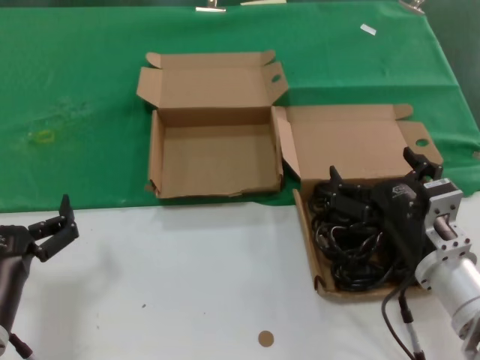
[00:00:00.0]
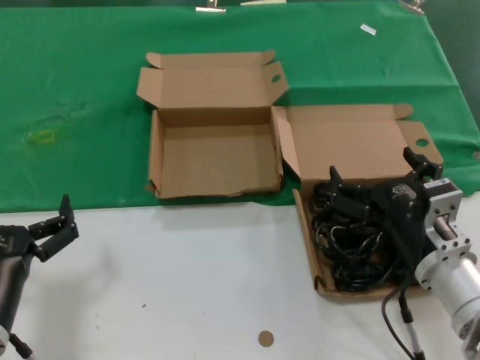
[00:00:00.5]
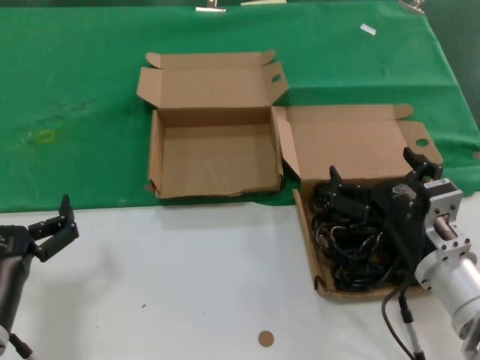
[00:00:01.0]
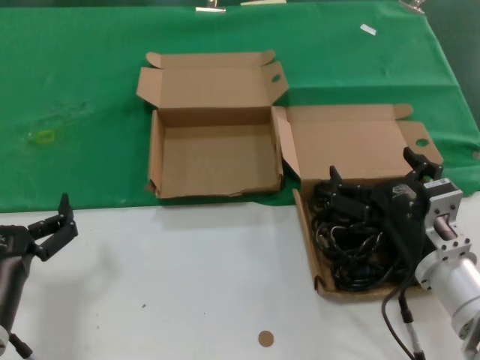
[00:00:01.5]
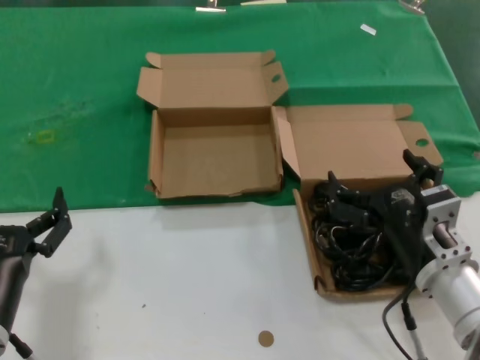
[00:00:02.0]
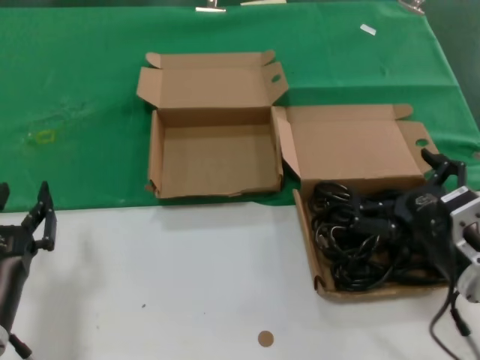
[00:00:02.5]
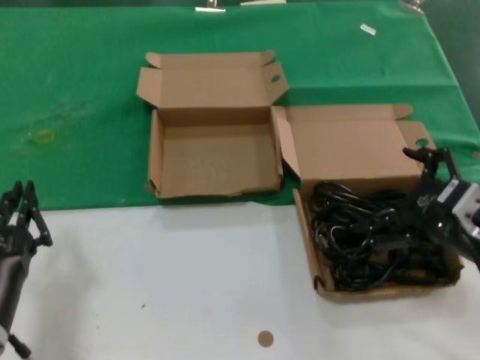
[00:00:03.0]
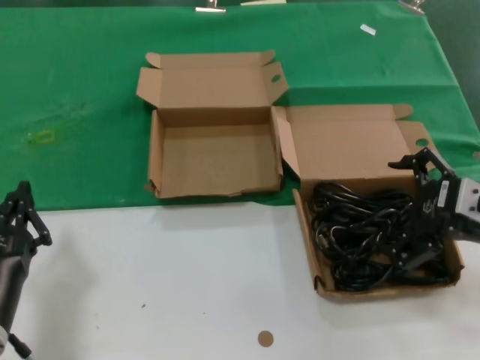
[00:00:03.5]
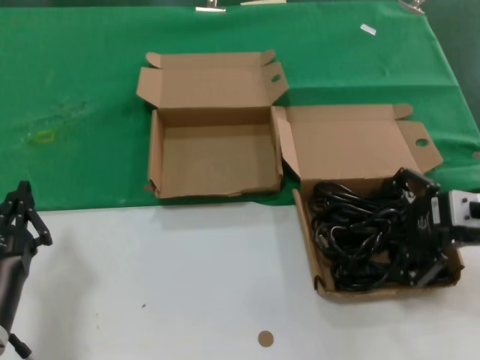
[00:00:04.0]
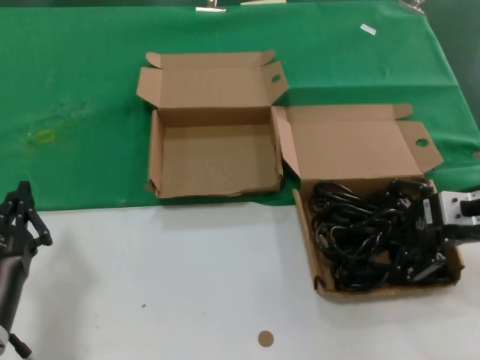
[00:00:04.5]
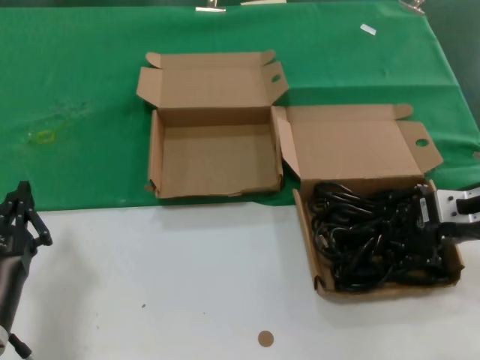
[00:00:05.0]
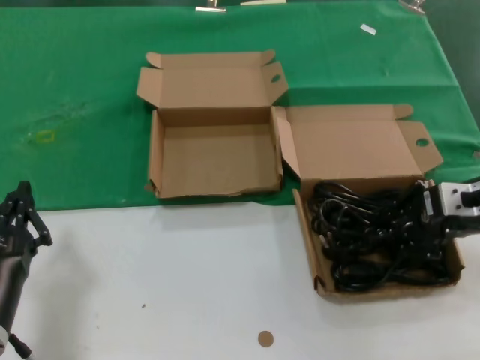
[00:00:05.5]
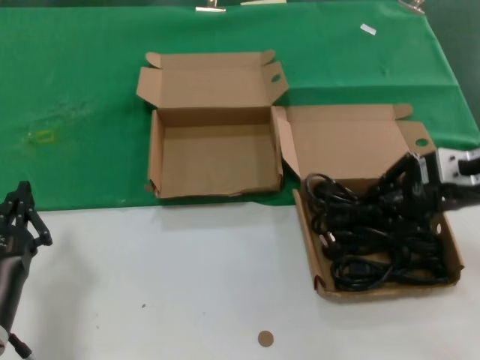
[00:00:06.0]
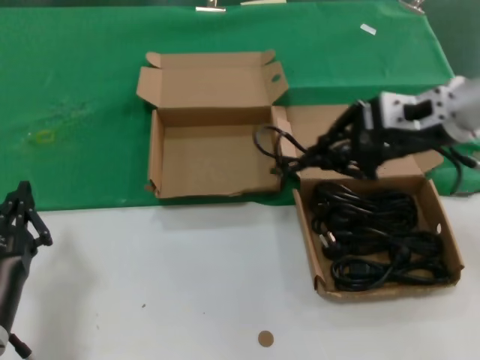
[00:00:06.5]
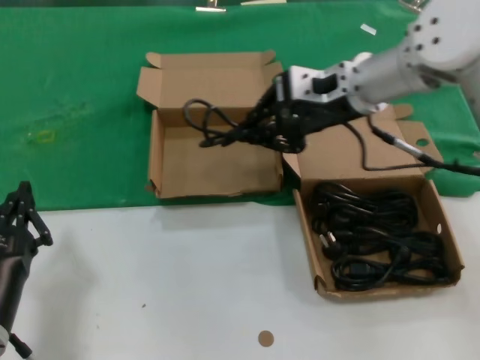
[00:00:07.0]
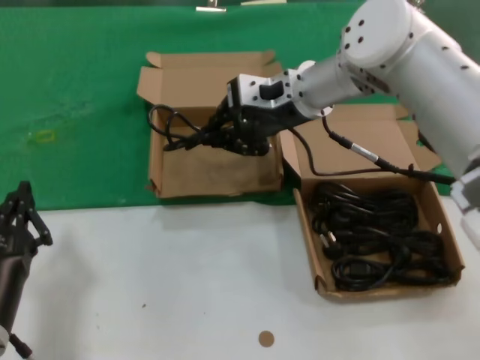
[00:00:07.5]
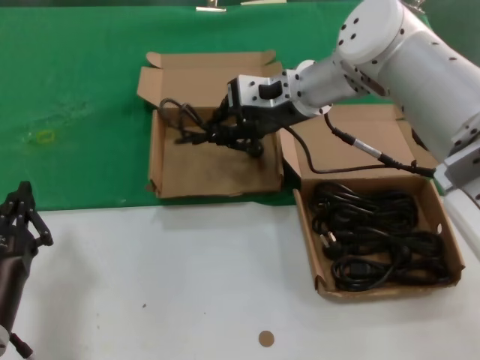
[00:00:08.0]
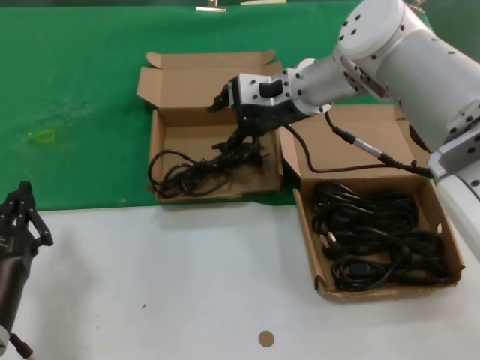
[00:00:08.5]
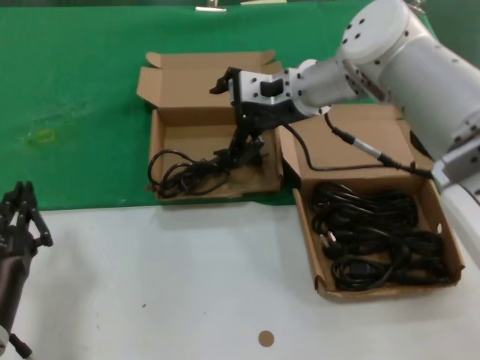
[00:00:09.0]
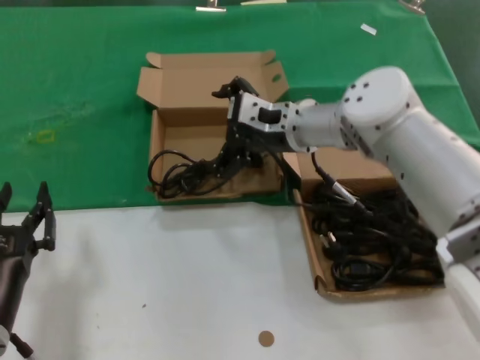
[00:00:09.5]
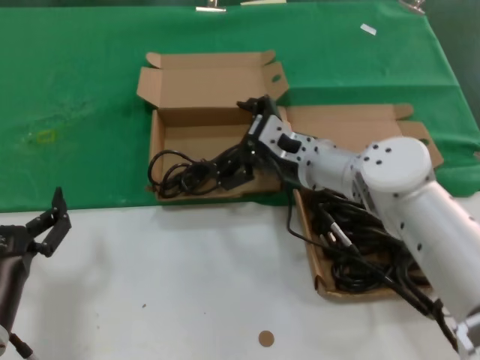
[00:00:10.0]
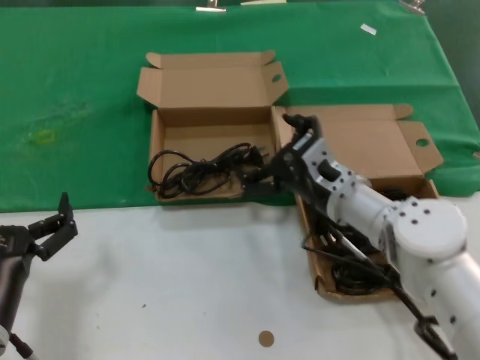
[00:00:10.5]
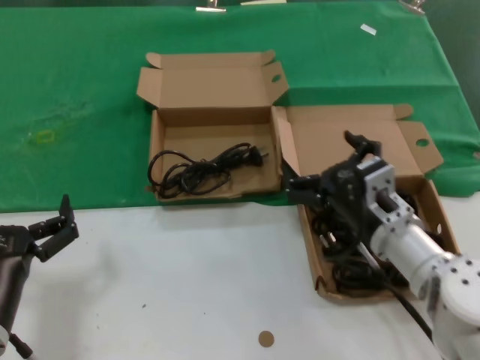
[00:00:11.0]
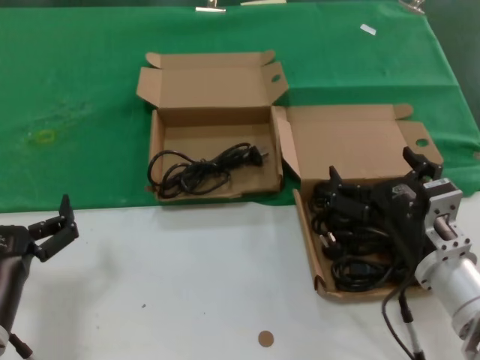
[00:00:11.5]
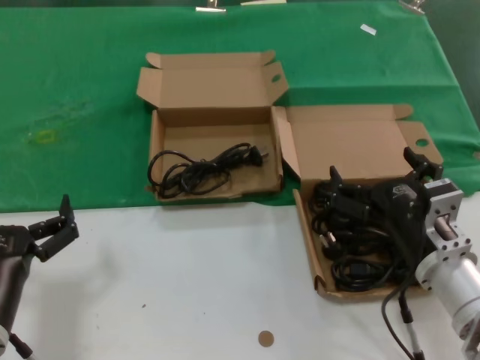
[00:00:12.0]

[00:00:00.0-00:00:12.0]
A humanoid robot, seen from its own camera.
Task of the whole recording: take the parts from the box containing them and put them into an empty box.
Step, 00:00:00.0 to 00:00:05.0: Grasp the data cable.
Step, 00:00:05.5 to 00:00:08.0: Place the data cable in the another box.
00:00:00.0 to 00:00:02.0: Neither hand changes place.
00:00:02.0 to 00:00:04.0: The right hand goes roughly 20 cm upward, to the right and forward.
00:00:04.0 to 00:00:06.0: The right hand shifts by about 5 cm.
00:00:06.0 to 00:00:08.0: The right hand moves to the left and forward, roughly 25 cm.
00:00:08.0 to 00:00:10.0: The right hand shifts approximately 15 cm downward and backward.
00:00:10.0 to 00:00:12.0: The right hand travels backward and to the right by some 20 cm.

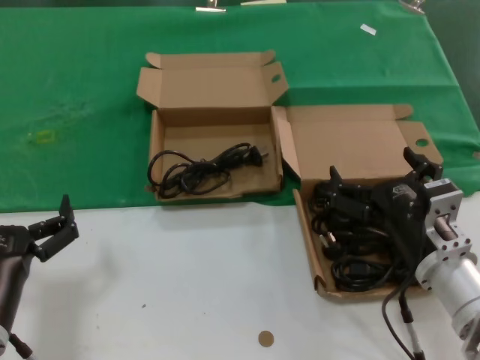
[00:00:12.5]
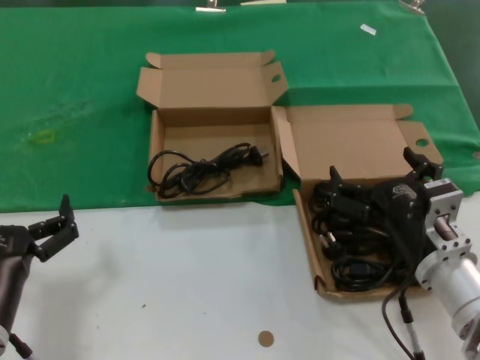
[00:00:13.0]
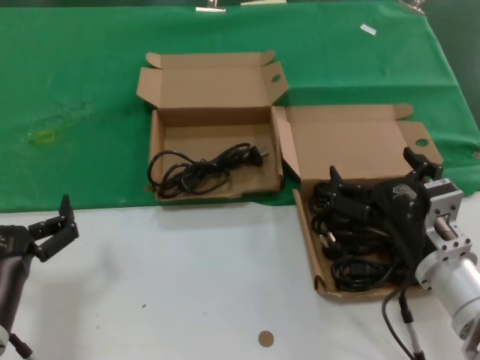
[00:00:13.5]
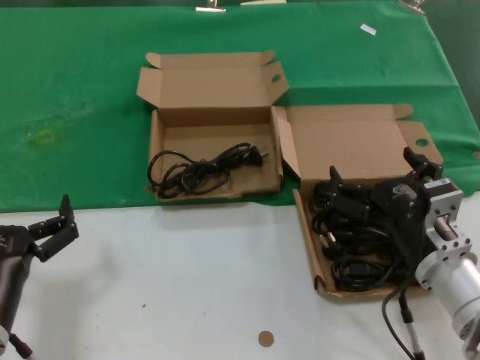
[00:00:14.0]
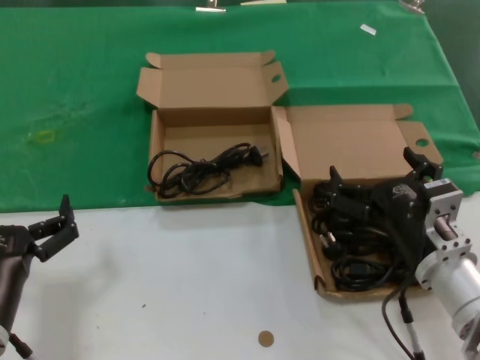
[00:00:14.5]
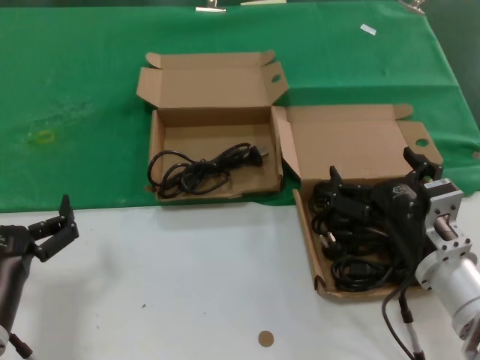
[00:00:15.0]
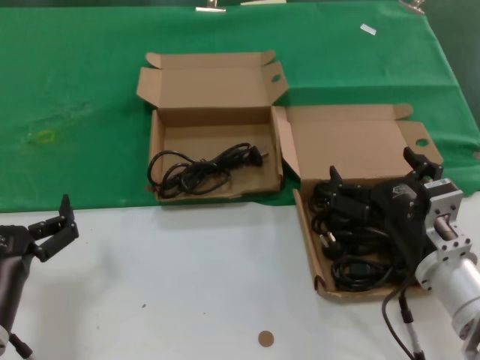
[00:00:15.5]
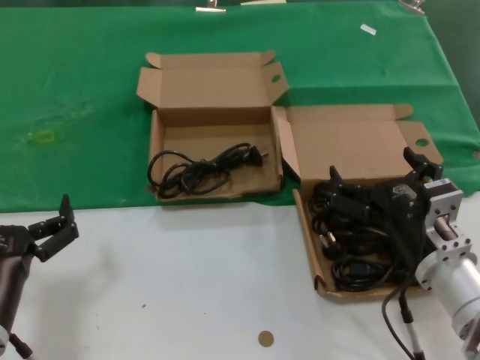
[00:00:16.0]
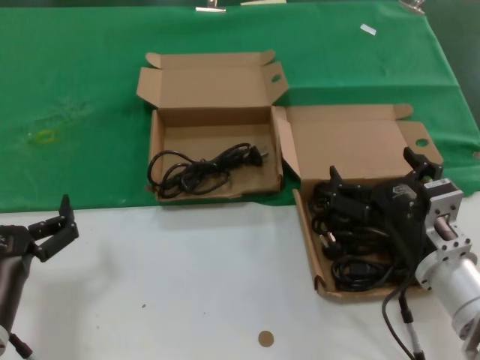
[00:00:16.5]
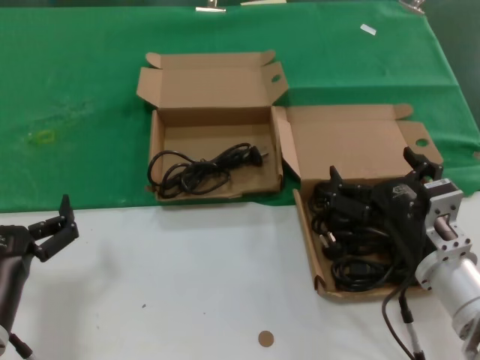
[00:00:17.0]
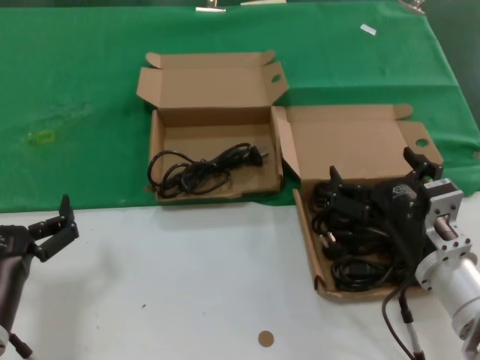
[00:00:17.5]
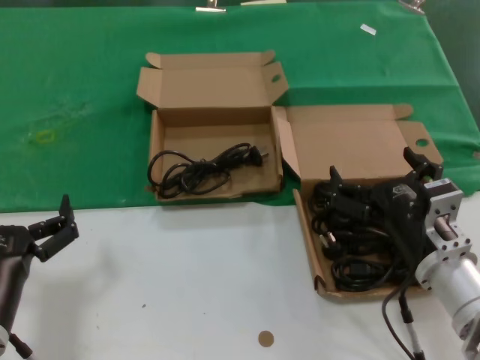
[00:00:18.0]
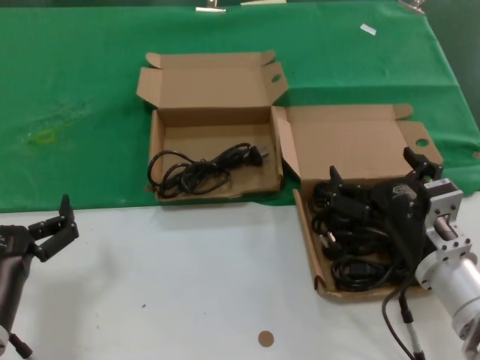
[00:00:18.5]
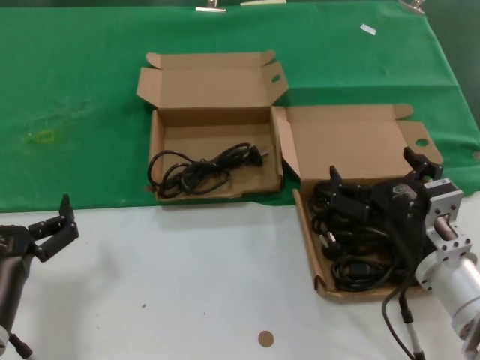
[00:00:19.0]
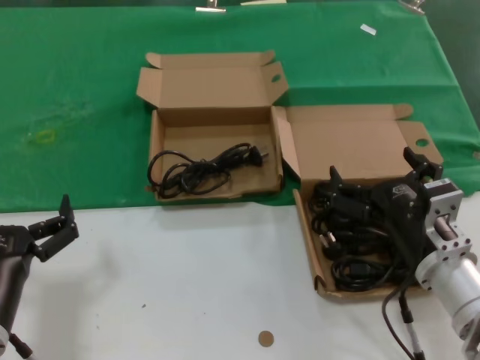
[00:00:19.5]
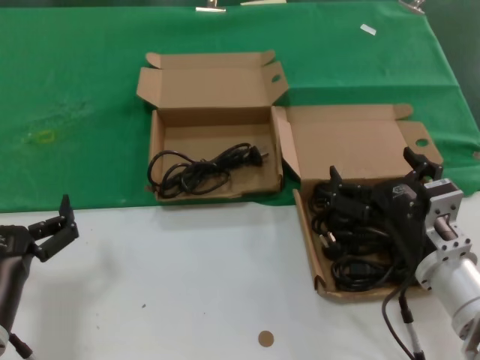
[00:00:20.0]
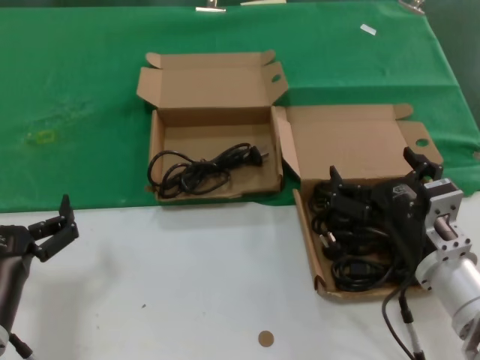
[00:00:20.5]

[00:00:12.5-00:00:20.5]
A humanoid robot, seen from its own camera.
Task of the whole recording: take the parts from the box containing them and put them into an empty box.
00:00:12.5 to 00:00:20.5: Both hands stay about where they are.

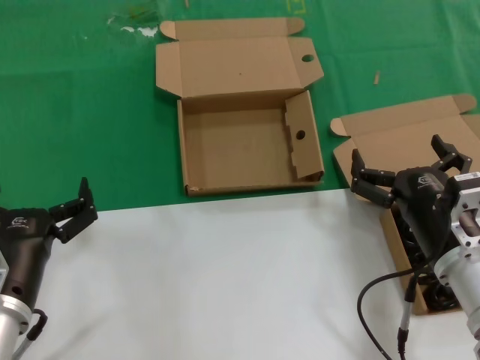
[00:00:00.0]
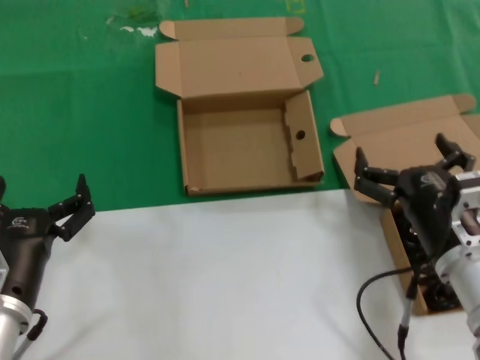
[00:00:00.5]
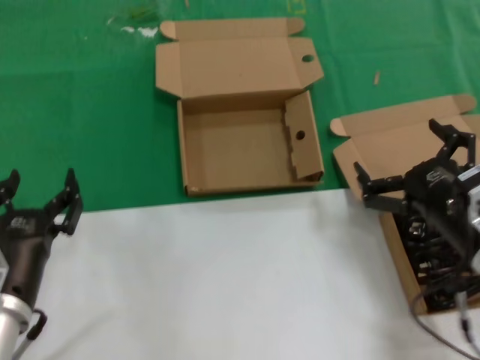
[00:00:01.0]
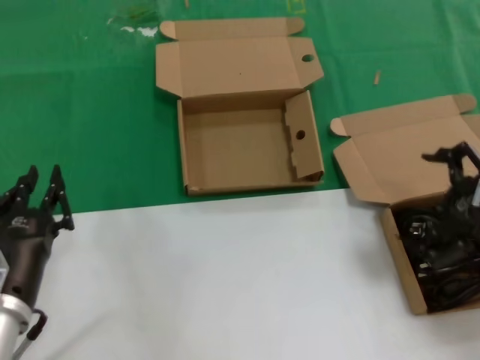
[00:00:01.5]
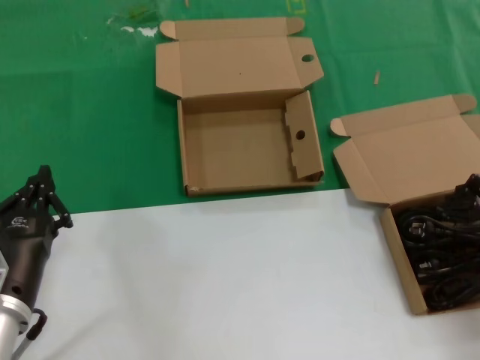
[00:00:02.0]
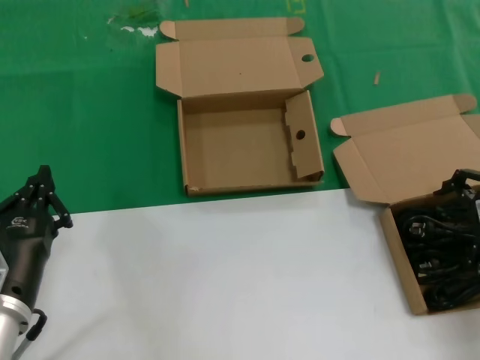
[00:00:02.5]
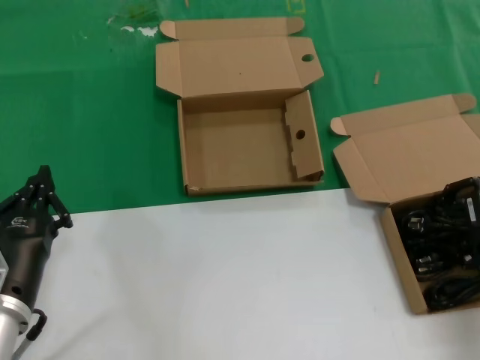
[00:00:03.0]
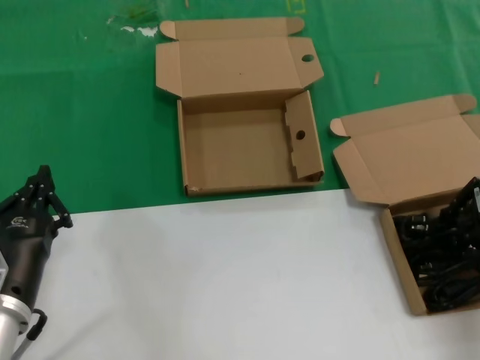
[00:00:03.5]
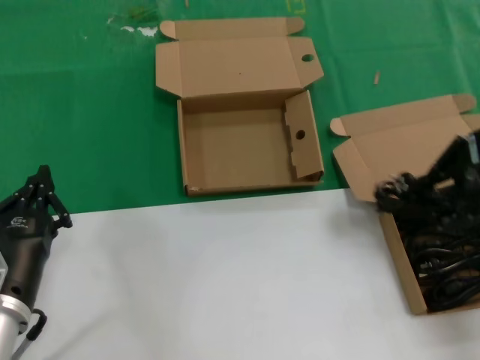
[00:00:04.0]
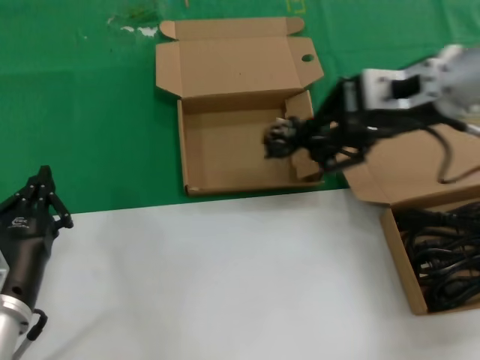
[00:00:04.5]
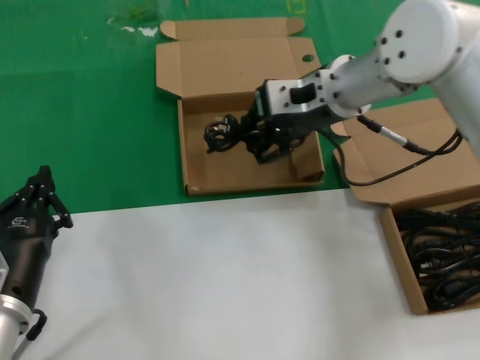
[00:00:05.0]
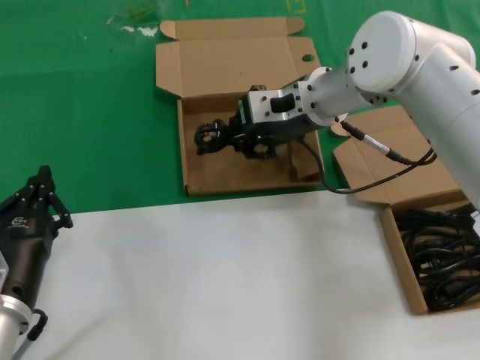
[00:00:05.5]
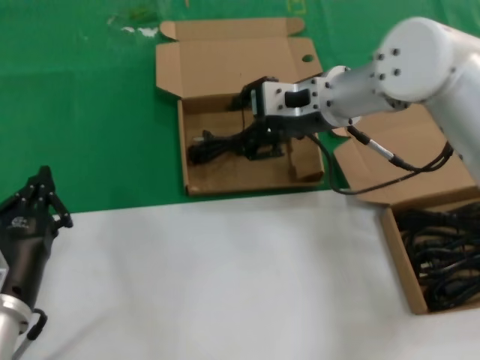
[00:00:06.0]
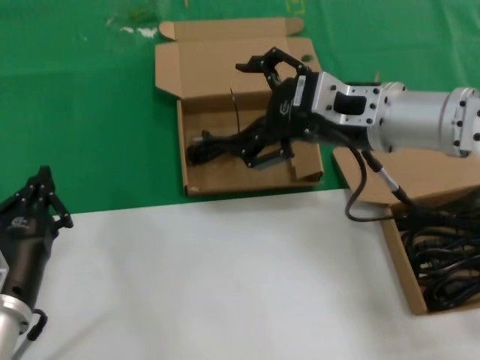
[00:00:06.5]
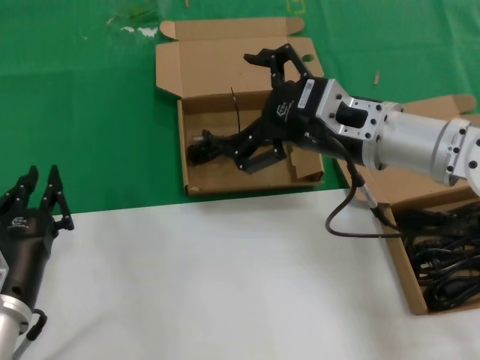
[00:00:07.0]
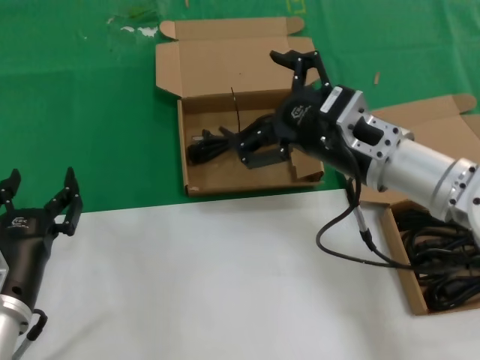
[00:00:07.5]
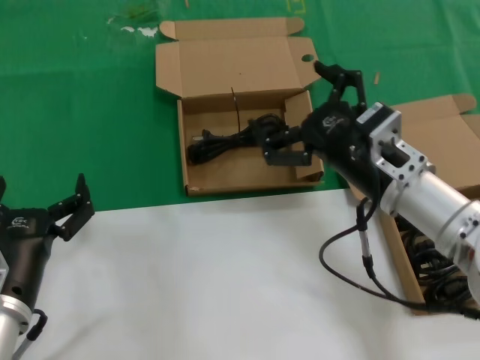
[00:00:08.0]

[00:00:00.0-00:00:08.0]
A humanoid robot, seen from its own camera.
Task of the whole recording: take the parts from the box containing them and put them into an empty box.
Step, 00:00:00.0 to 00:00:03.0: Grasp the data cable.
Step, 00:00:03.5 to 00:00:06.0: Place the data cable in the another box.
00:00:00.0 to 00:00:02.0: The right hand goes some 20 cm to the right and upward.
00:00:02.0 to 00:00:04.0: The right hand heads upward, covering approximately 10 cm.
00:00:04.0 to 00:00:06.0: The right hand moves to the left and forward, approximately 25 cm.
00:00:06.0 to 00:00:08.0: The right hand travels backward and downward by roughly 15 cm.
